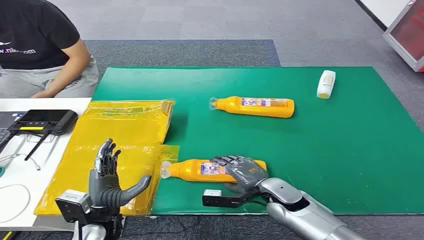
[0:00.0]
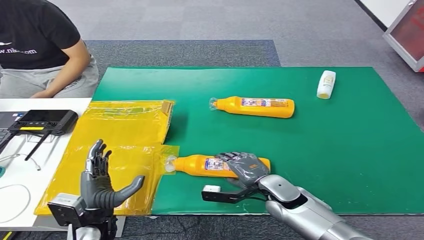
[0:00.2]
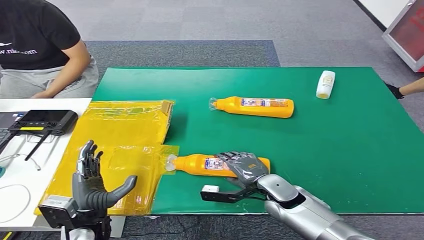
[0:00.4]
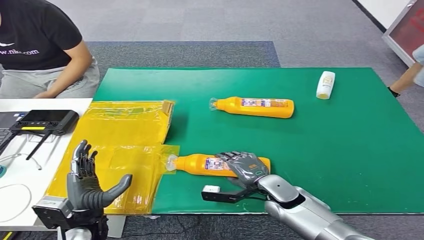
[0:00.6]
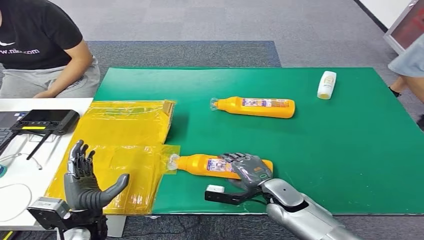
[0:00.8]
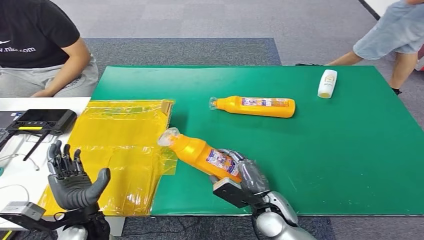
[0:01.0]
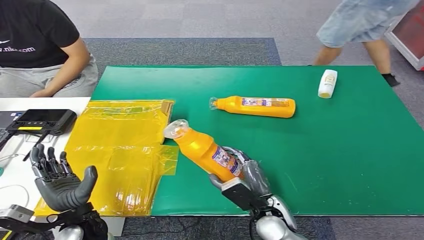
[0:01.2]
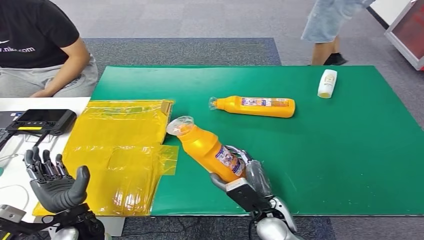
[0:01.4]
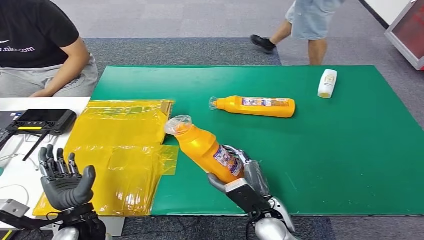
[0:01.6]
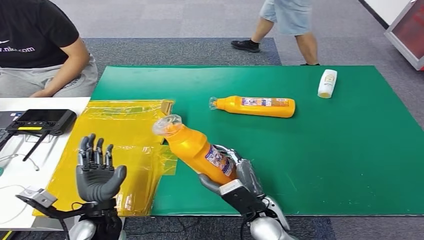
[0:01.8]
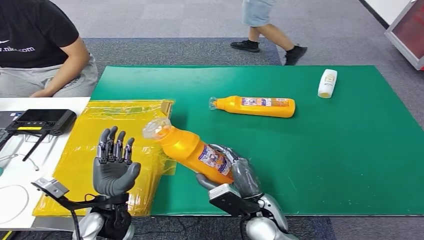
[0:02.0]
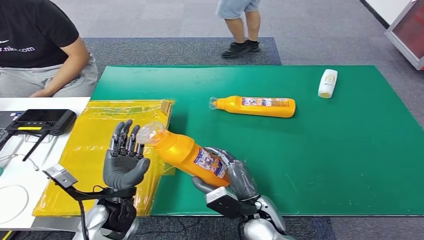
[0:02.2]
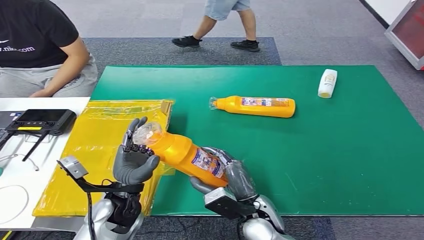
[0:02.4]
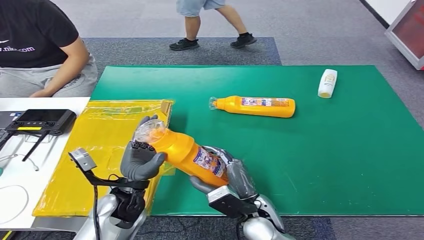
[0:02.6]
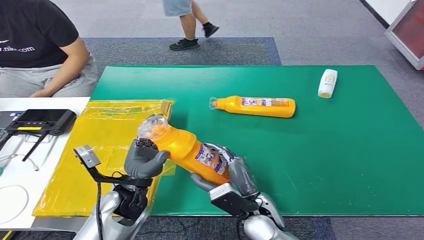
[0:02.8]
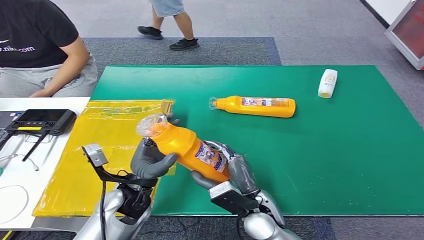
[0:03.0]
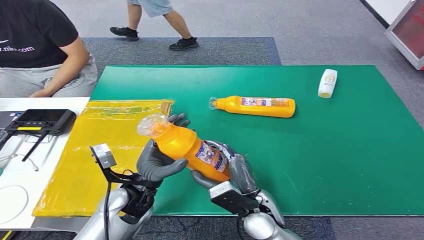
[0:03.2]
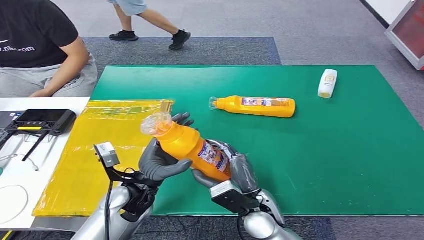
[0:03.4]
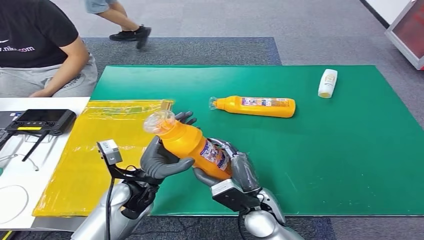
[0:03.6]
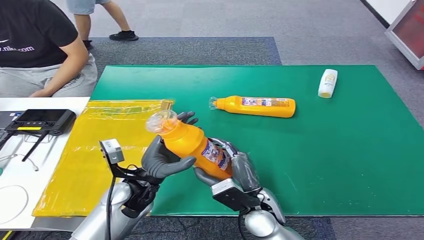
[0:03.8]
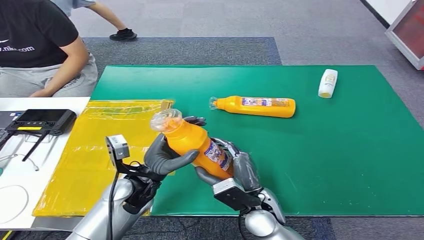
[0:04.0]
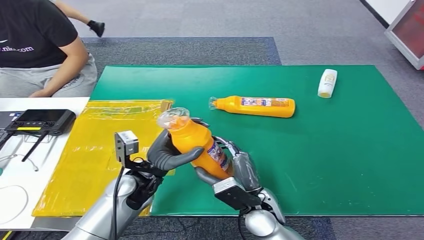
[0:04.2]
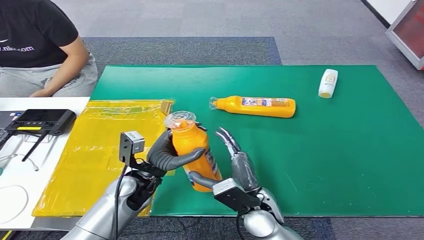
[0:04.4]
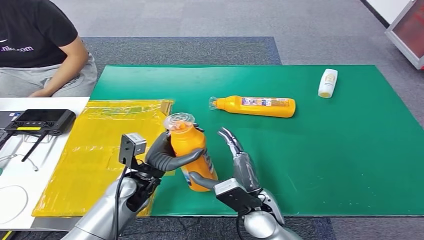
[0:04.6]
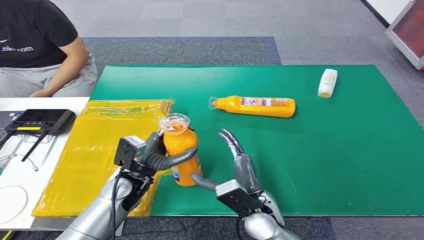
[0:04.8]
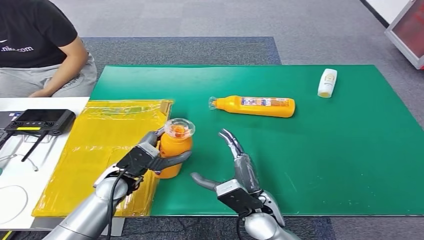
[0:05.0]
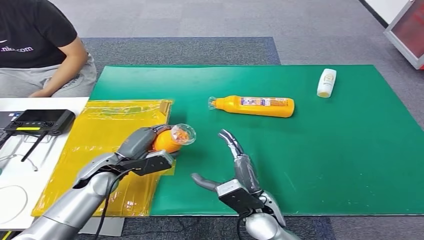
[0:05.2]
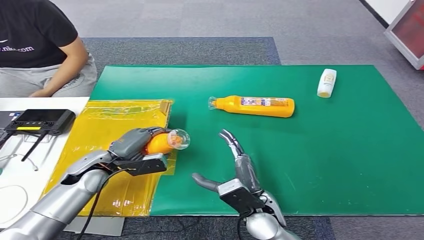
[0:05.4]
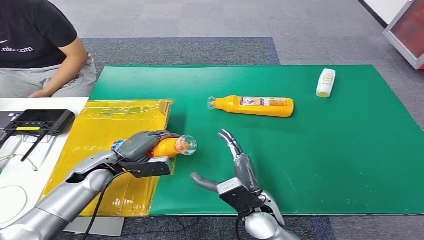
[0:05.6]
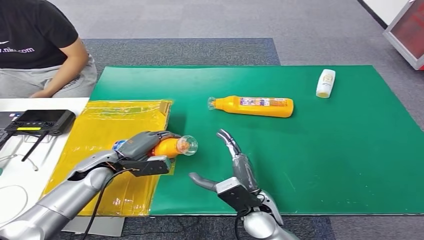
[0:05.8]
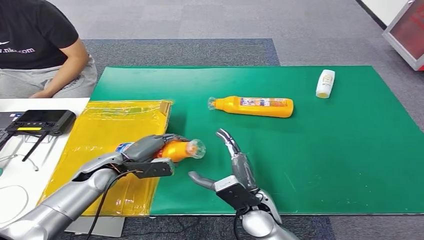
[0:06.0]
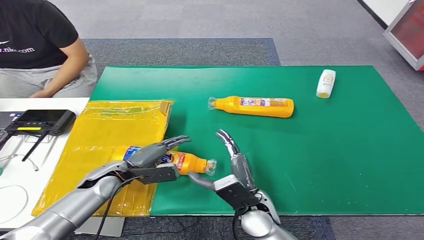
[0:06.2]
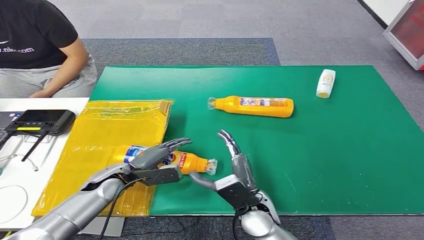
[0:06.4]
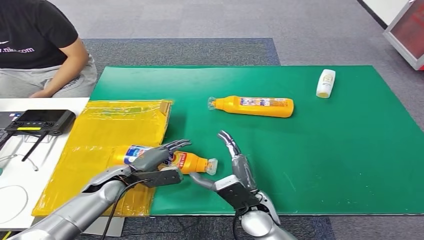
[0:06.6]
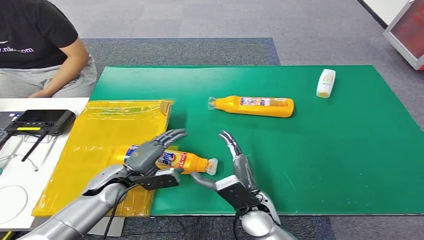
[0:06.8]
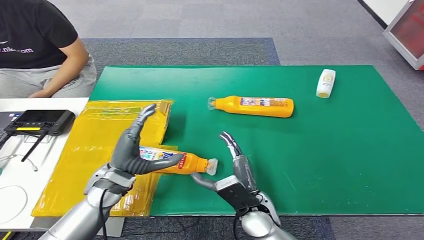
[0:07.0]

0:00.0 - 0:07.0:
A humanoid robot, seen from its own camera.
Step, 0:00.0 - 0:02.8: Pick up the bottle from the table.
Step, 0:03.0 - 0:07.0: Turn the bottle to the front side.
0:04.2 - 0:05.6: The left hand shifts some 10 cm to the left.
0:05.6 - 0:07.0: The left hand heads to the right and backward, covering some 10 cm.

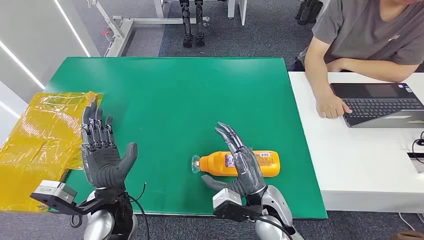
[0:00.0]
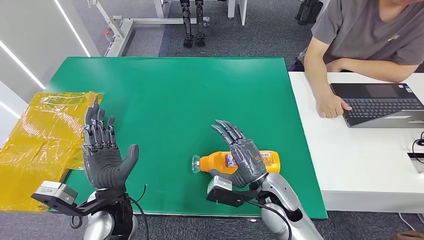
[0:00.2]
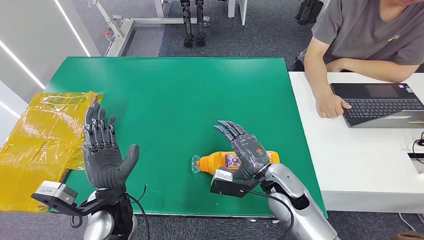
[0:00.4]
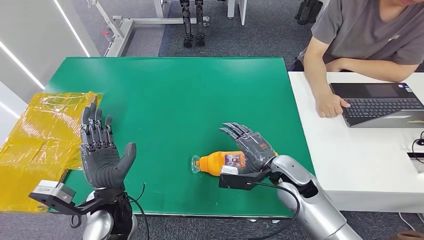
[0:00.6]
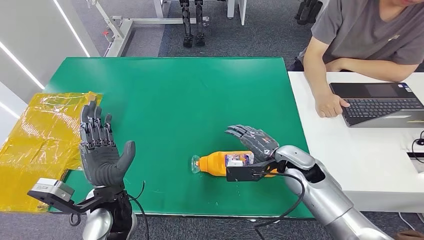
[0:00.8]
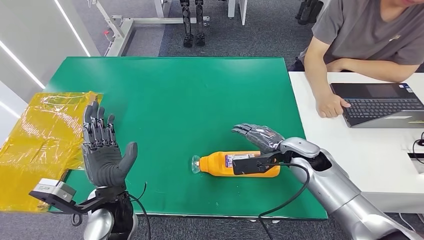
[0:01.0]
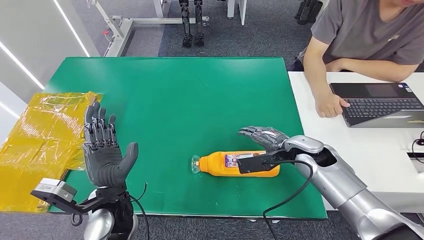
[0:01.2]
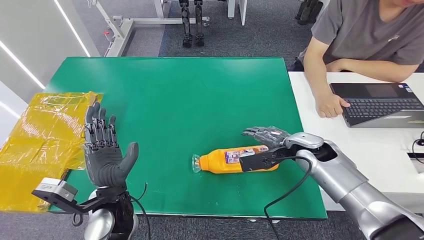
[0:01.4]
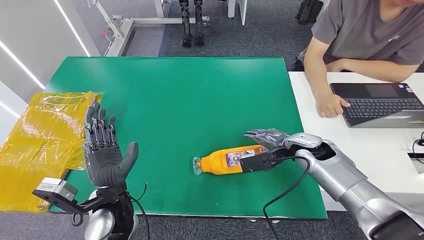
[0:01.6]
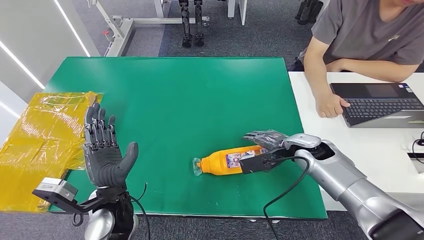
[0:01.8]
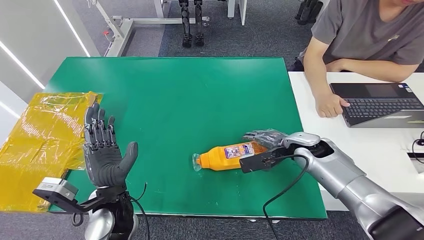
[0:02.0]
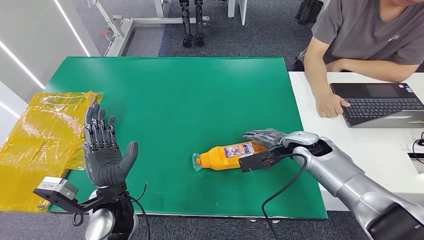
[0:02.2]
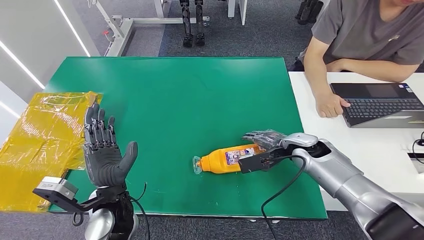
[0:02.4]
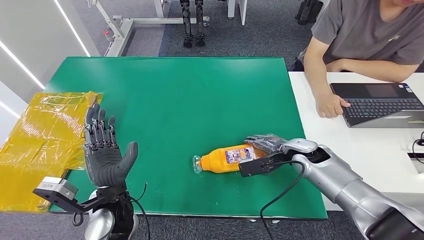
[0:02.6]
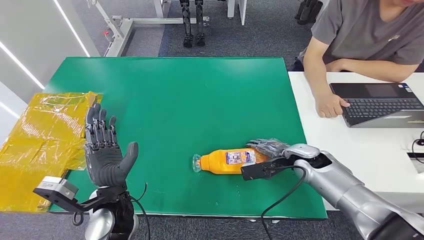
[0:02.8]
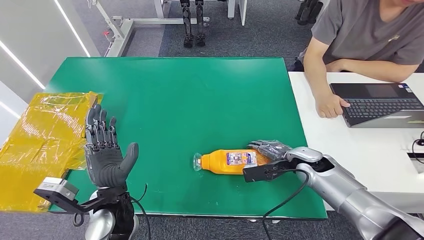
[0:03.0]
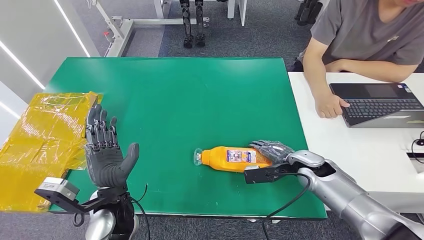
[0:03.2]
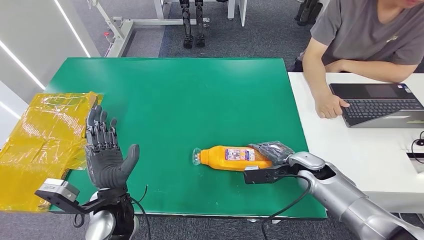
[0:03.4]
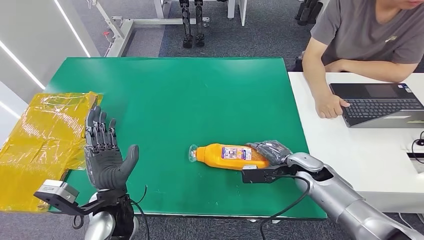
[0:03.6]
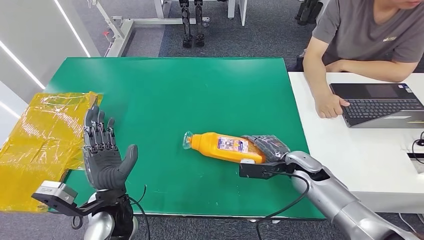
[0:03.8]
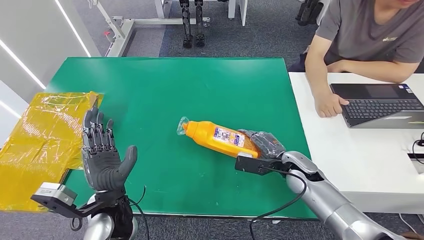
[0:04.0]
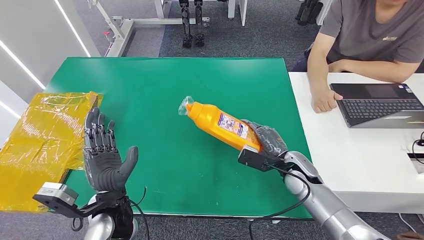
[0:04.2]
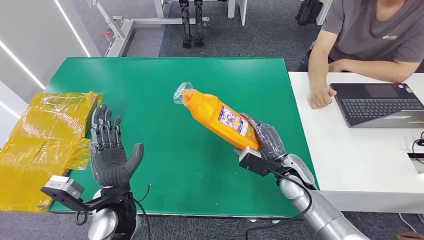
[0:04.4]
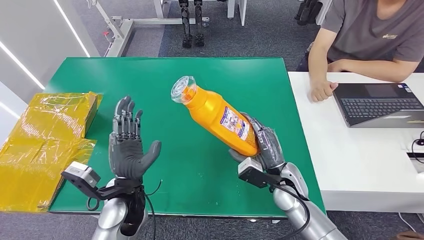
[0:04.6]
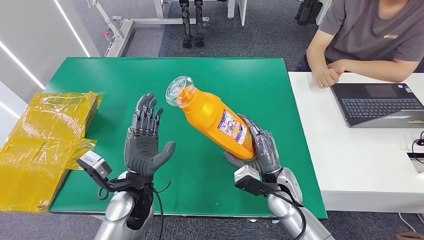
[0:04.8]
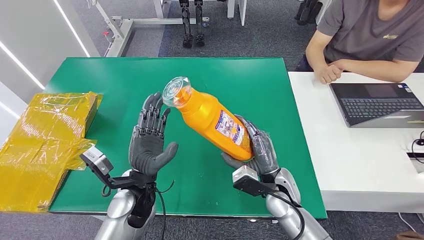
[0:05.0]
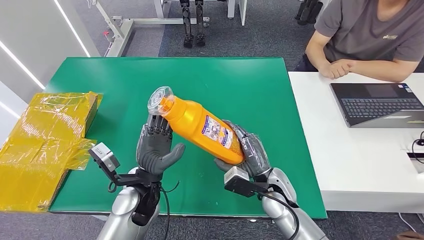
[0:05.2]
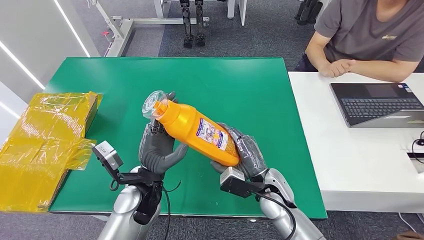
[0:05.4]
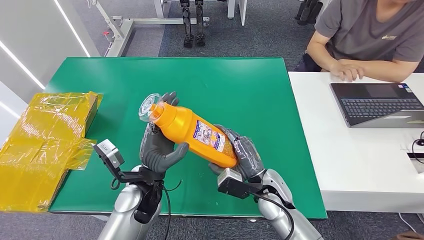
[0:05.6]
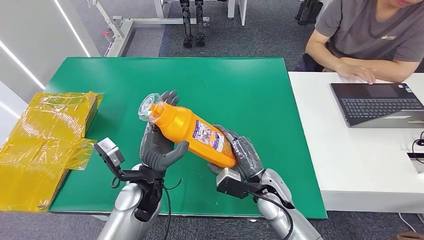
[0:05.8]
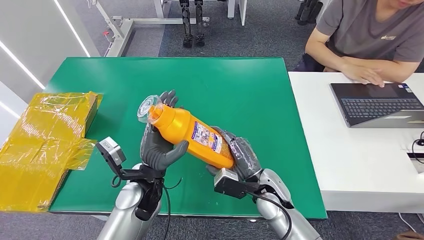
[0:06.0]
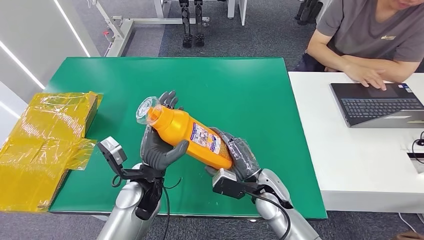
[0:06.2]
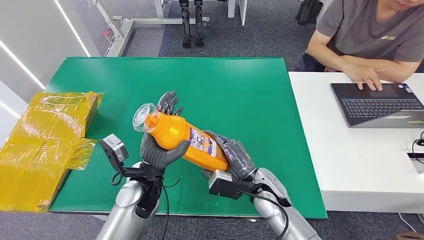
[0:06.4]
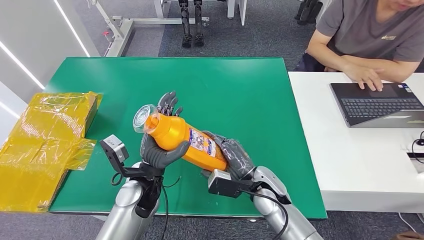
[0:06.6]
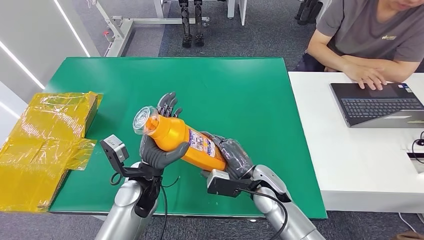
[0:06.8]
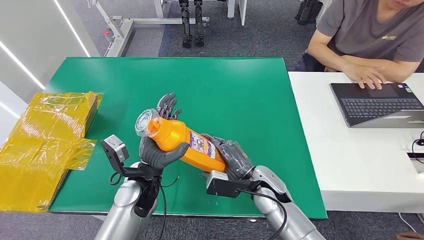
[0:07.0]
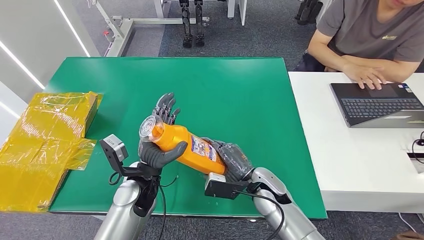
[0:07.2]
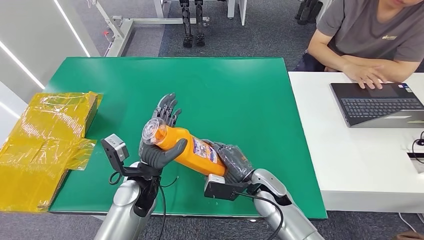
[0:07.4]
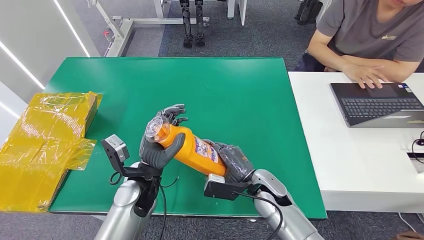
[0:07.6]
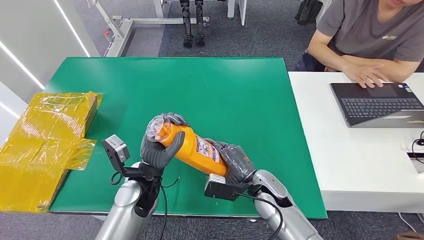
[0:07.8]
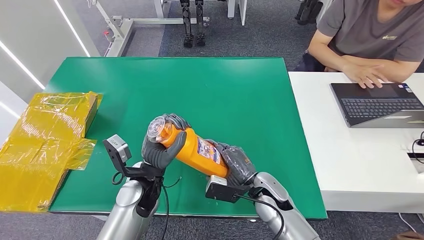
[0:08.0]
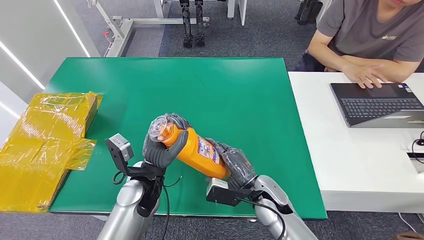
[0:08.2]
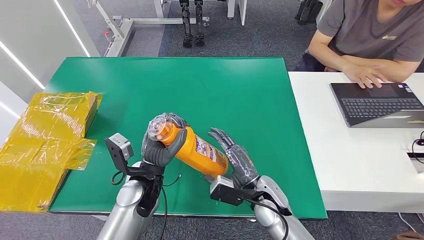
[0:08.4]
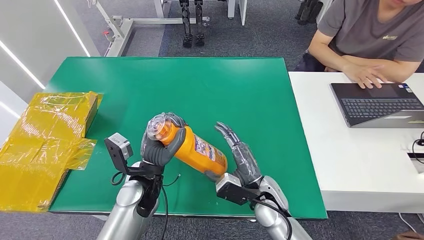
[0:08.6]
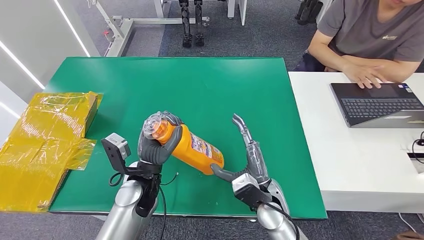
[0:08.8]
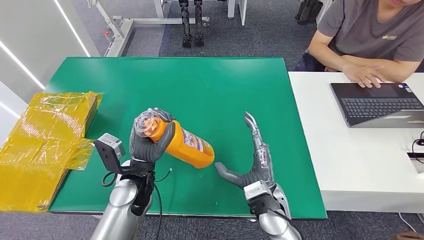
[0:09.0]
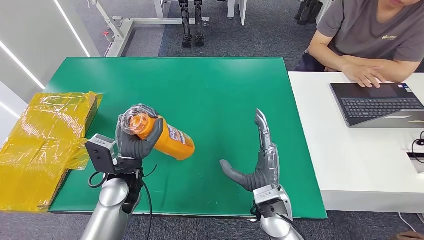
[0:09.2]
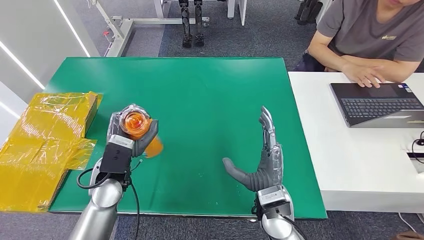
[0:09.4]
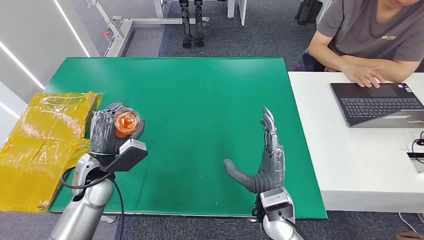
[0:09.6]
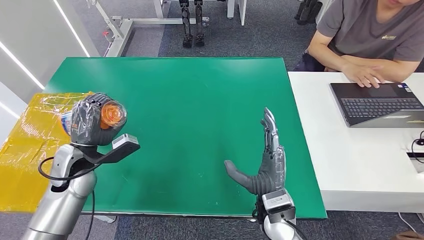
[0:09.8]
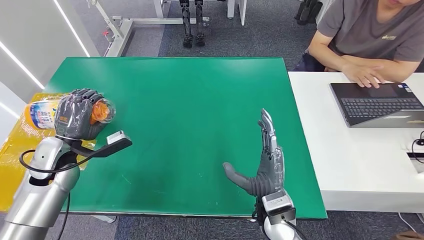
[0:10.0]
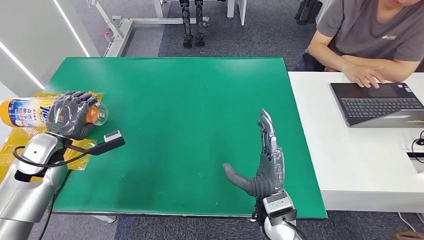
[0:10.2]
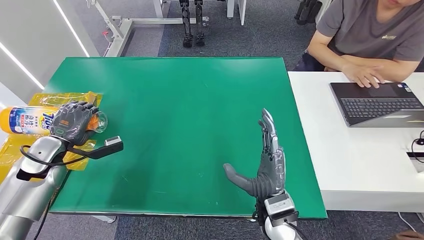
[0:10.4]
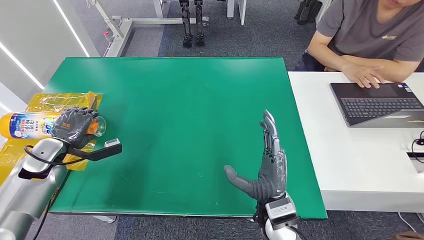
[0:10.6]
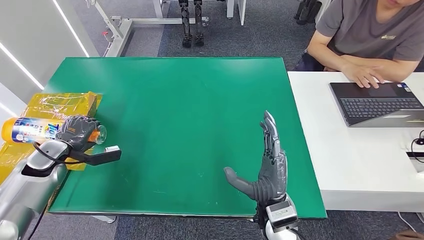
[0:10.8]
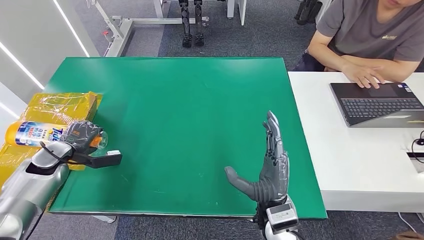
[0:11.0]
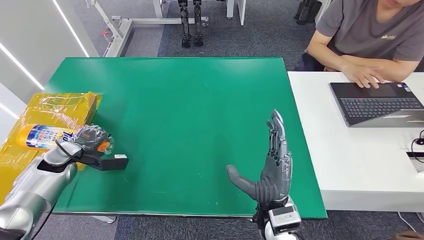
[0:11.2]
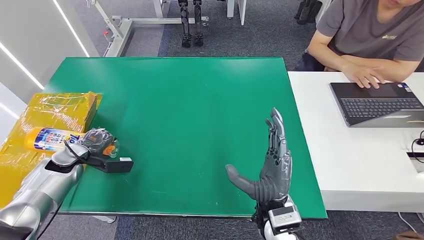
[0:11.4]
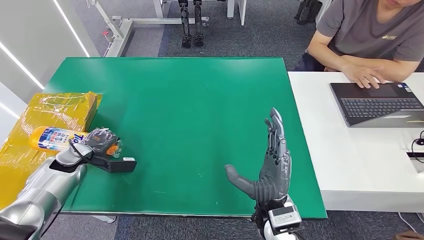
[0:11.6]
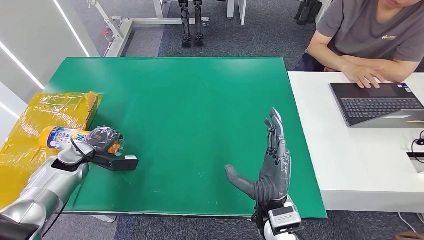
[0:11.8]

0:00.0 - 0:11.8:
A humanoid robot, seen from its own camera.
Step, 0:00.0 - 0:07.6: Pick up the bottle from the table.
0:01.4 - 0:03.0: The right hand shifts roughly 5 cm downward.
0:03.0 - 0:04.4: The right hand is displaced to the left by about 5 cm.
0:06.0 - 0:07.4: The hands make only small movements.
0:08.8 - 0:10.4: The left hand heads to the left, covering roughly 25 cm.
0:10.4 - 0:11.8: The left hand travels downward by about 5 cm.
